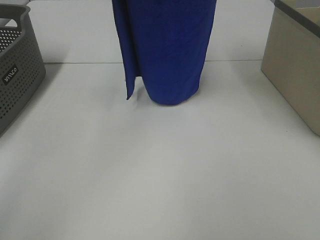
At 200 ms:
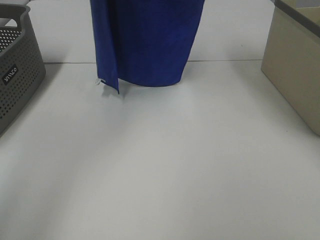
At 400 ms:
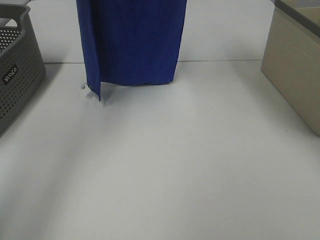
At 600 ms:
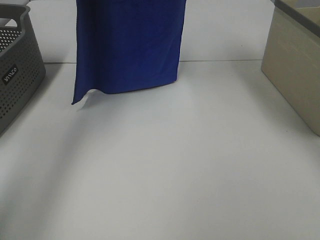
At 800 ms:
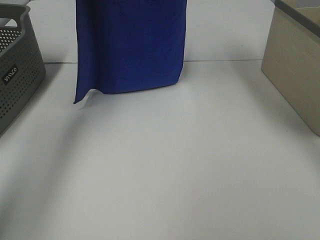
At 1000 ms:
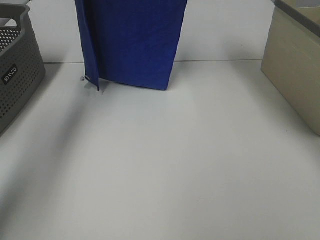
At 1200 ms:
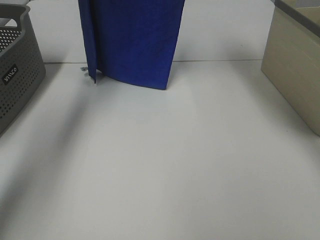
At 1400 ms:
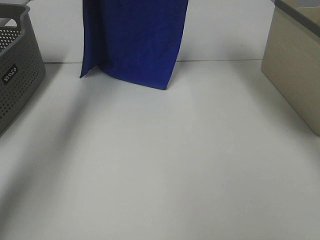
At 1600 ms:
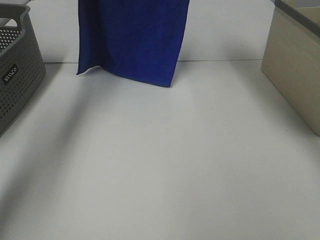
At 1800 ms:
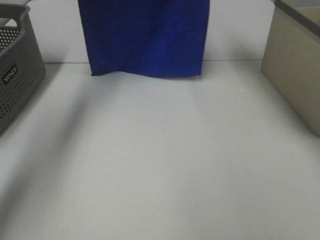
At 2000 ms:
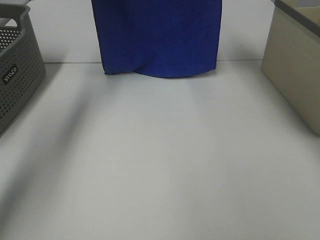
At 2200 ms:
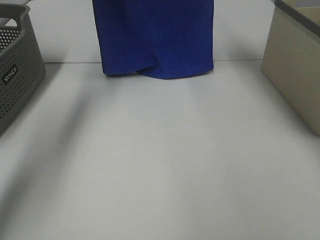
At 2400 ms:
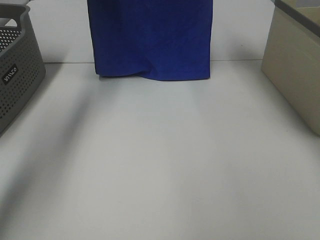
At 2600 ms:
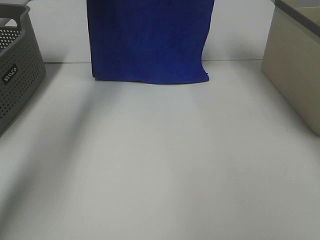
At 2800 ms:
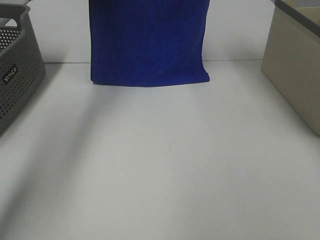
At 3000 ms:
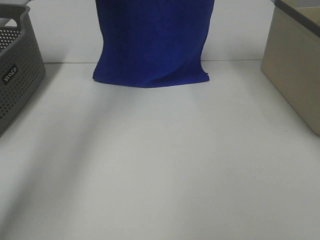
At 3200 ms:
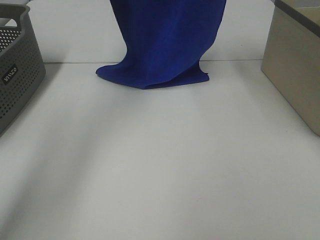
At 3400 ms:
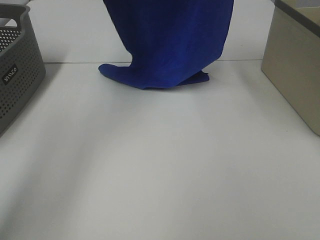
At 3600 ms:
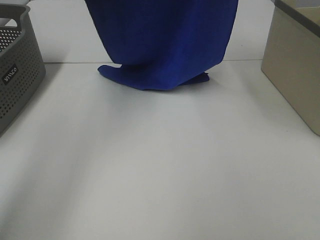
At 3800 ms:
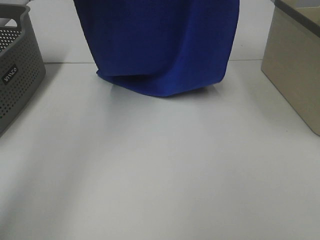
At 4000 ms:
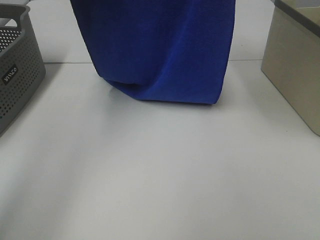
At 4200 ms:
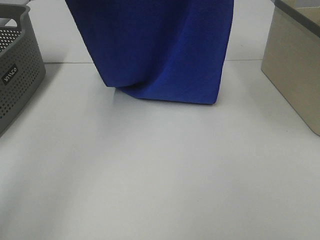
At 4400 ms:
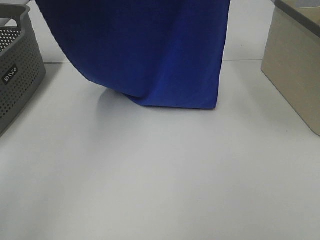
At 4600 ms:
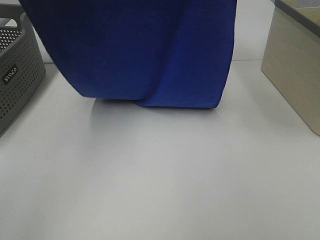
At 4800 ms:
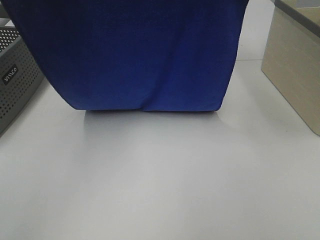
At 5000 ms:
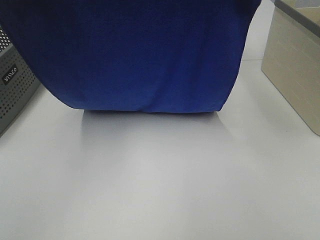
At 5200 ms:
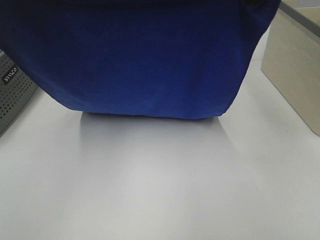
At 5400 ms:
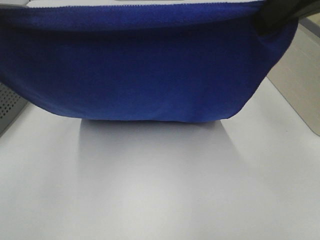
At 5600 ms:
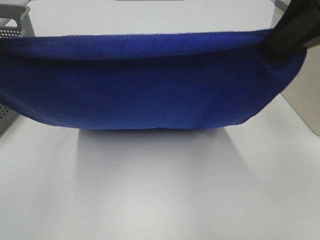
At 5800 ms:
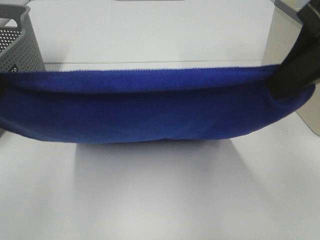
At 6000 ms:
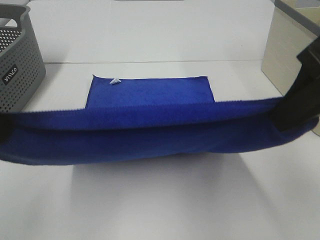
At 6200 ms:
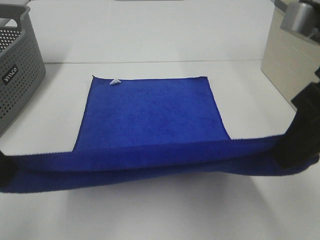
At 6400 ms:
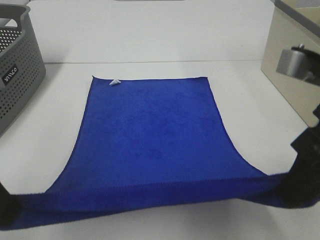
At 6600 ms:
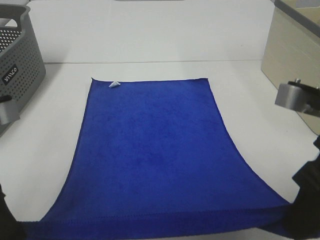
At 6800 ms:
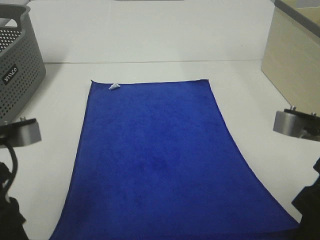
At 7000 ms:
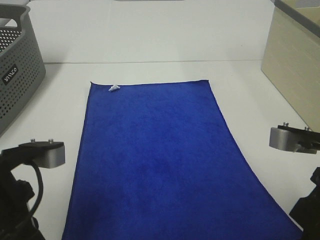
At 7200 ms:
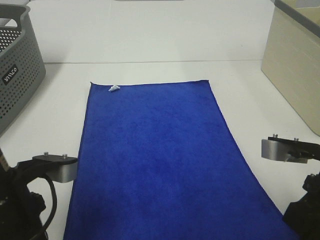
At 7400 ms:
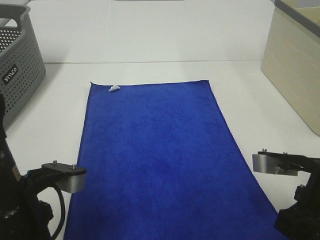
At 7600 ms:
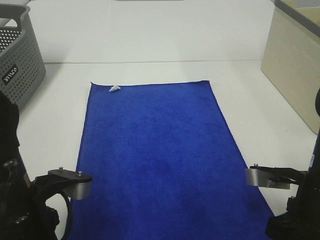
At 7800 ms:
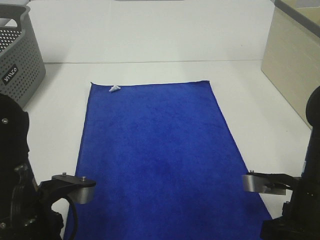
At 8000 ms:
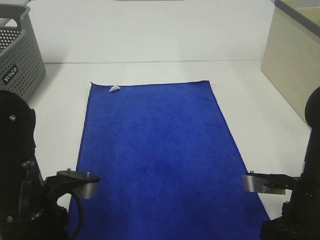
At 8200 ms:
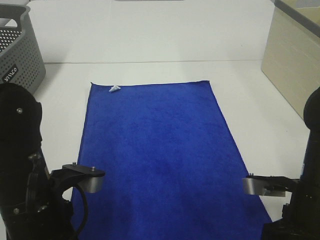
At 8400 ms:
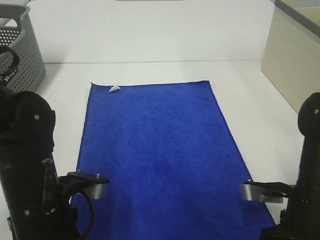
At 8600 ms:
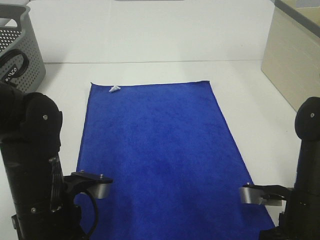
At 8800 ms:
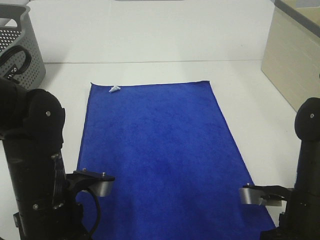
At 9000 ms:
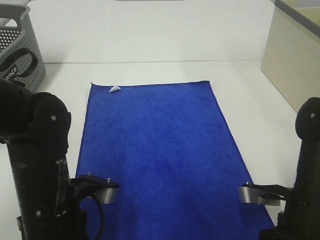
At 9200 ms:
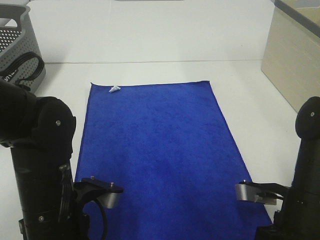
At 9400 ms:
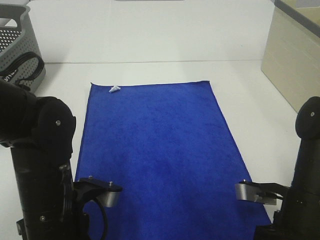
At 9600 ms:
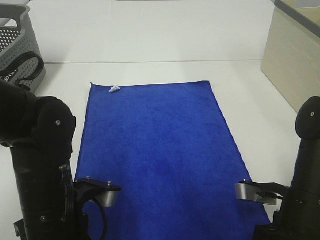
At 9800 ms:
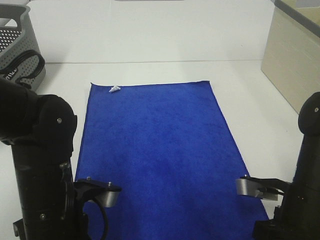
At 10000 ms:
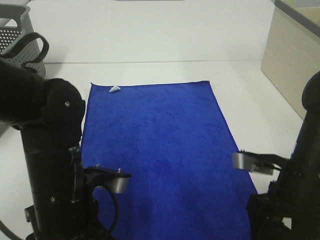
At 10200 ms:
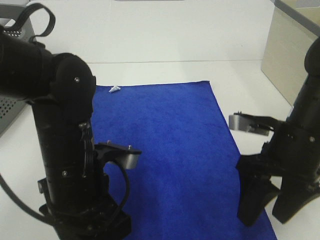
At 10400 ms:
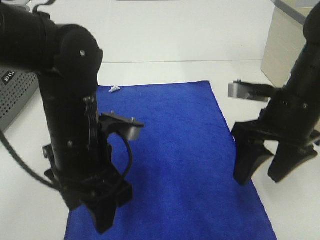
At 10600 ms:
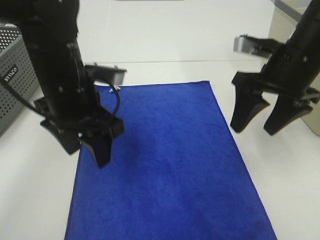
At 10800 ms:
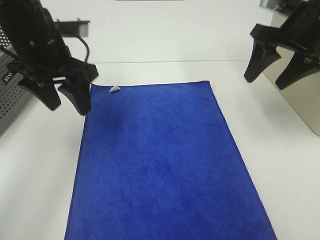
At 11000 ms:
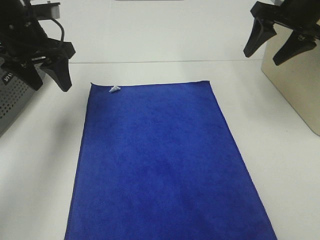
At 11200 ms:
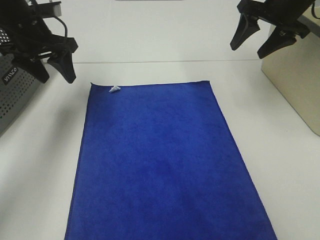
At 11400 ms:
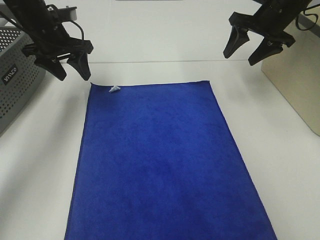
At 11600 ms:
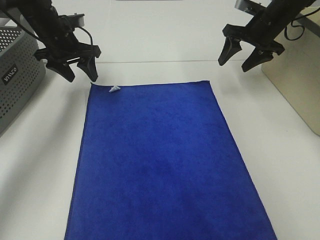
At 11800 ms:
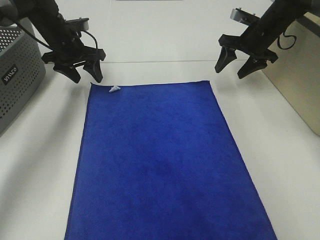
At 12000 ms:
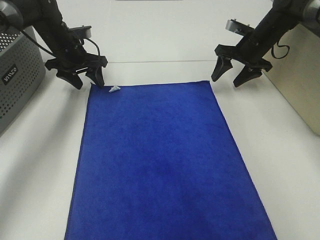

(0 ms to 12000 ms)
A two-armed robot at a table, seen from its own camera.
Task of the whole recording: Remove the towel and place it.
Step, 0 ms - 4400 ms: Left hand: spread the blue towel flat on the table.
Step, 0 ms - 4400 ms: Right hand: spread the blue towel flat on the table.
Step, 4600 ms - 11000 ms: Left hand:adjust the blue towel.
Step, 4600 ms - 11000 ms: Right hand:adjust the blue towel.
0 ms - 1600 ms: The left gripper goes some 20 cm forward, downward and to the left. Meanwhile the right gripper goes approximately 10 cm forward and downward.
3000 ms - 4400 ms: The right gripper travels backward by about 10 cm, while the left gripper shifts about 20 cm backward.
4400 ms - 6000 ms: Both grippers move backward and downward, some 20 cm.
6000 ms - 7600 ms: Both grippers travel together downward, about 20 cm.
7600 ms - 9000 ms: The grippers stay close to where they were, moving slightly.
9000 ms - 10400 ms: The left gripper is displaced forward and upward by some 10 cm, and opens, while the right gripper moves upward and forward, roughly 15 cm, and opens.
10400 ms - 12000 ms: The right gripper moves forward, some 25 cm, while the left gripper is displaced forward and to the left by roughly 35 cm.

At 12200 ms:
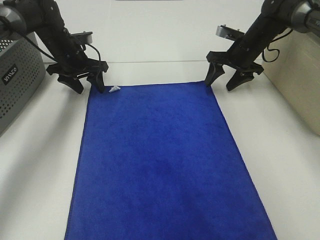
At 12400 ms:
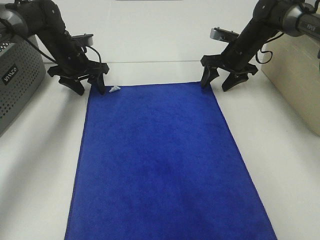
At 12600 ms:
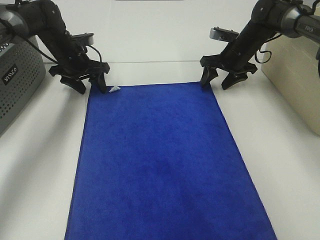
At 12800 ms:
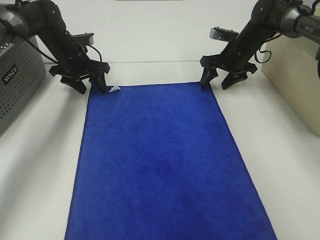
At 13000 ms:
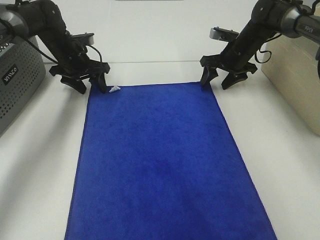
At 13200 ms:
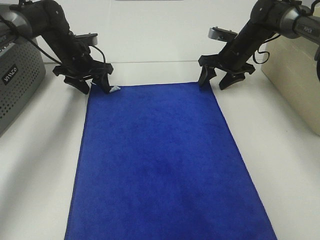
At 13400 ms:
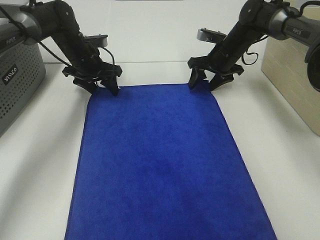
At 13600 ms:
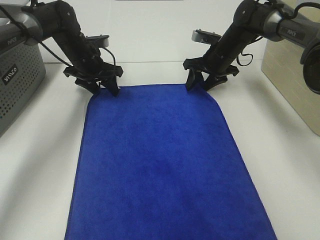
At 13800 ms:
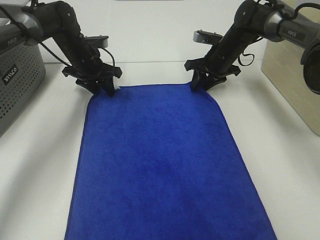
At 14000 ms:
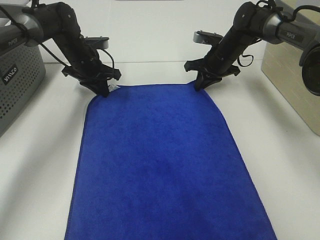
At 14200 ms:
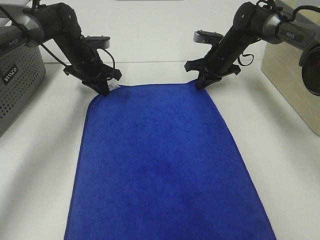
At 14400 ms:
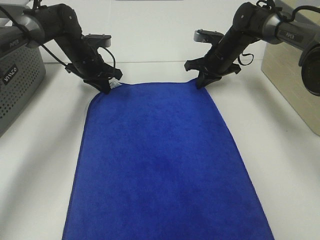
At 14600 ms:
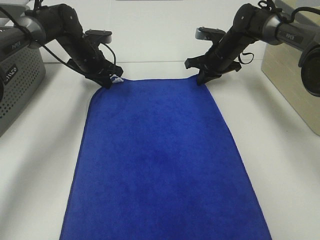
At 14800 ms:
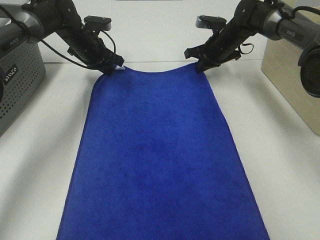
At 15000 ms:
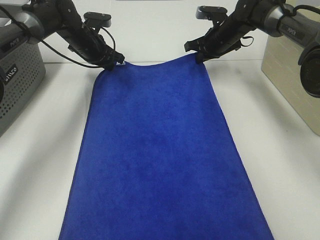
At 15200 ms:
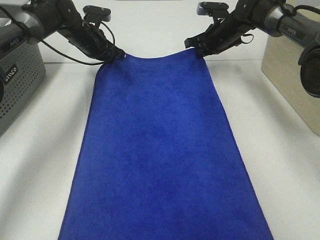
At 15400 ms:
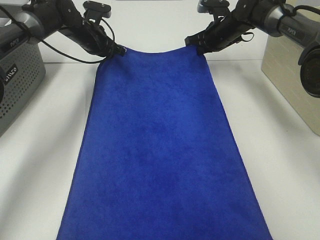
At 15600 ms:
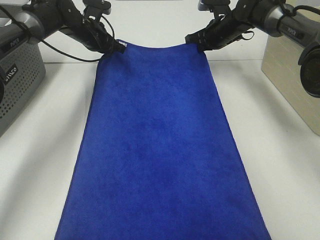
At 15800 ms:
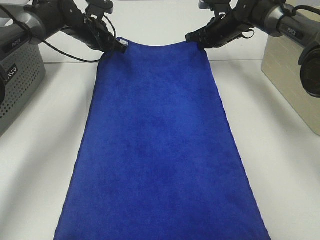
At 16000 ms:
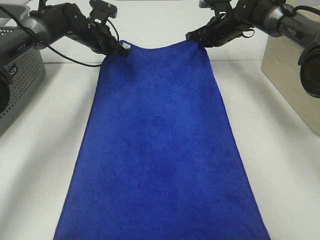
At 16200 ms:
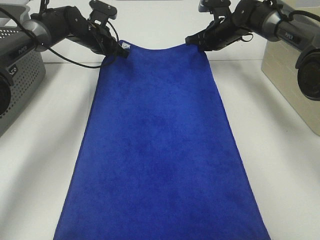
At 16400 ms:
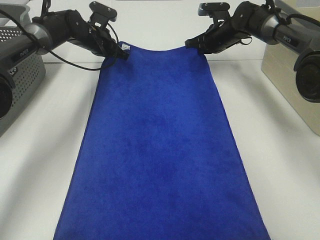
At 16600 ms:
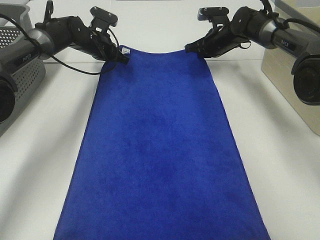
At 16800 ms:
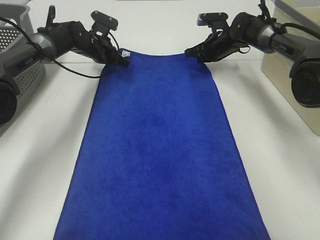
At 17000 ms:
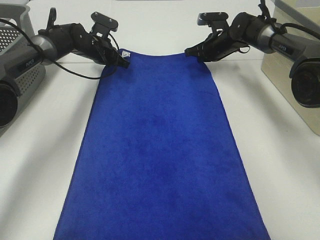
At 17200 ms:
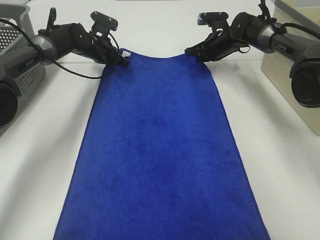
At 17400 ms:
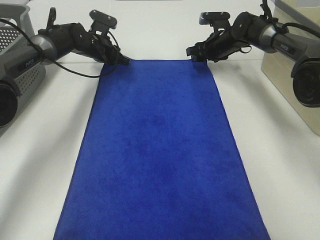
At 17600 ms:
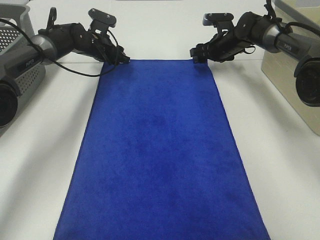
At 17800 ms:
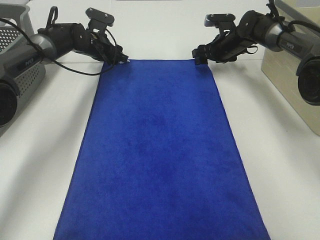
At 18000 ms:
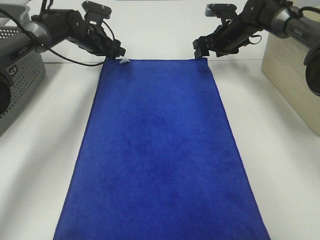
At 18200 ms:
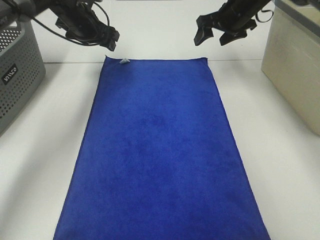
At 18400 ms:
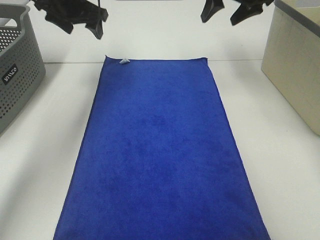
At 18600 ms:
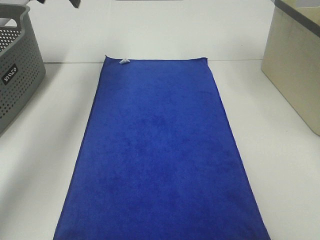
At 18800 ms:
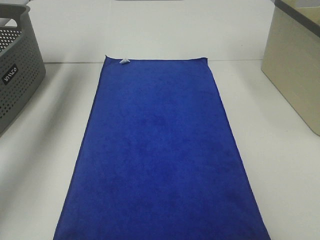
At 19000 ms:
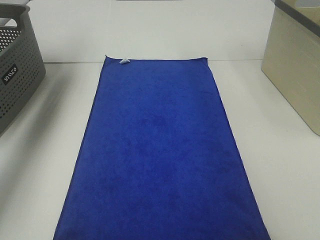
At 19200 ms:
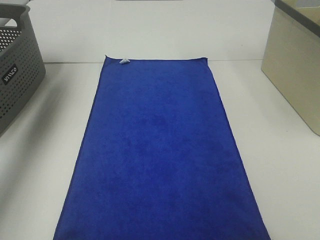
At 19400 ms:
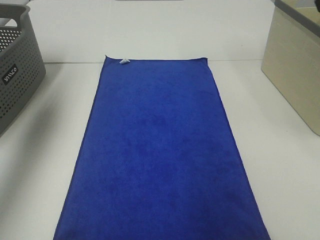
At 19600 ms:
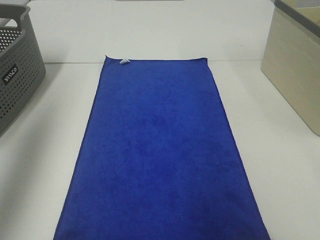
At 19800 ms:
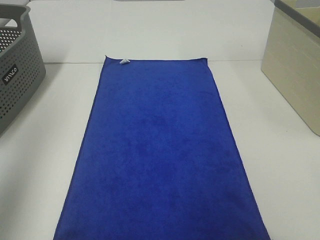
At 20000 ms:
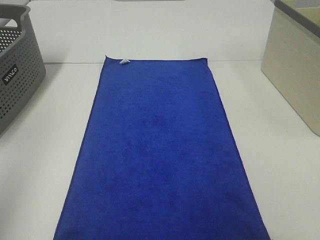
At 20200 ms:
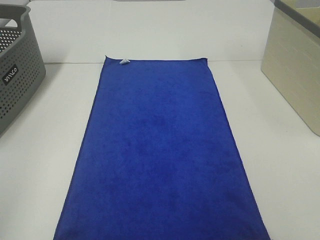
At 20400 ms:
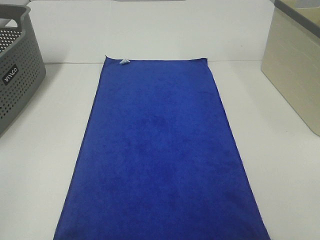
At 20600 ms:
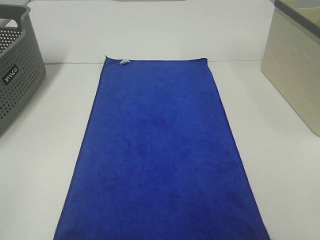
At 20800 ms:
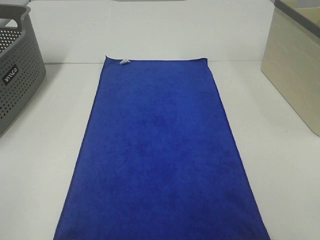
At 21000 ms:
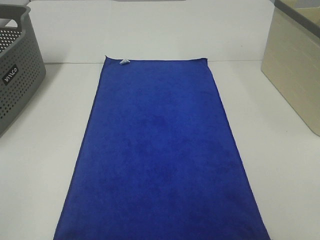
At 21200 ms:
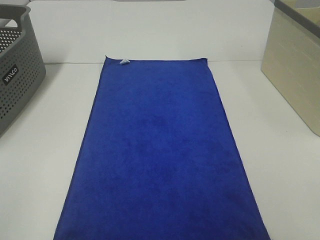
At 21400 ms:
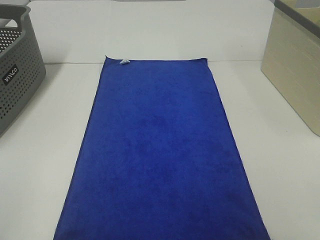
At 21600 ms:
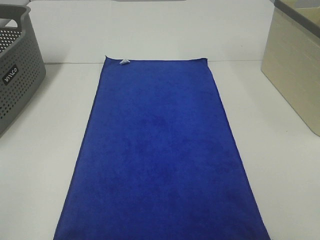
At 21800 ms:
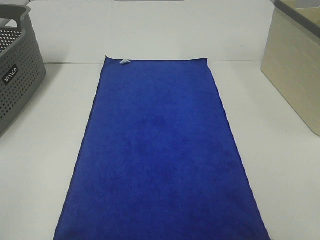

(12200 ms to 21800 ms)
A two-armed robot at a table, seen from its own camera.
Task of the whole recording: Remove the towel and place it.
12200 ms - 13800 ms: The right gripper changes place by approximately 5 cm, and closes its fingers.
13800 ms - 15400 ms: The right gripper changes place by approximately 5 cm, and closes. Meanwhile the left gripper ends up some 5 cm from where it was, and closes.
15400 ms - 17000 ms: The grippers move only a little.
17000 ms - 18600 ms: The two grippers go about 25 cm upward. The right gripper opens its fingers. The left gripper opens up.
18600 ms - 20200 ms: The left gripper travels backward by roughly 50 cm.
